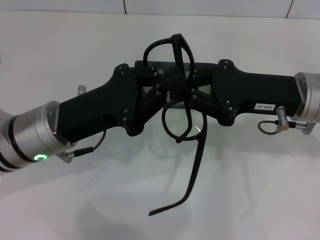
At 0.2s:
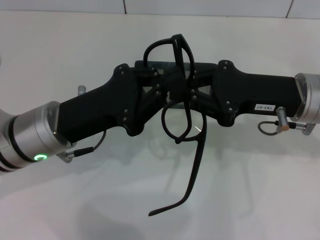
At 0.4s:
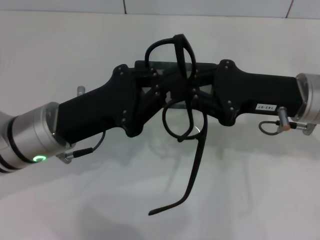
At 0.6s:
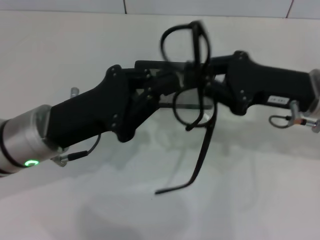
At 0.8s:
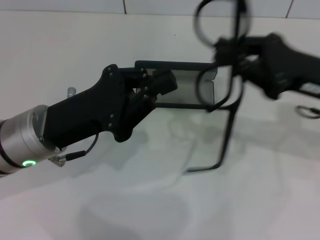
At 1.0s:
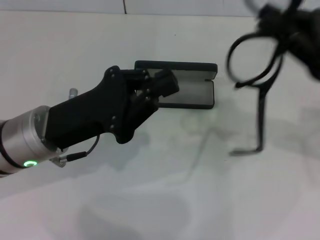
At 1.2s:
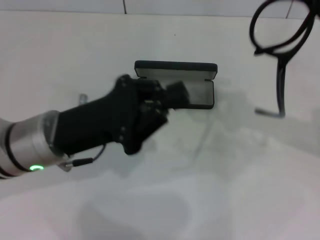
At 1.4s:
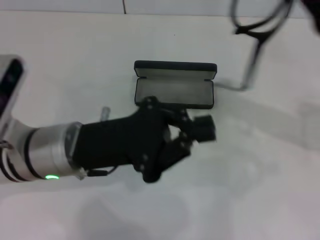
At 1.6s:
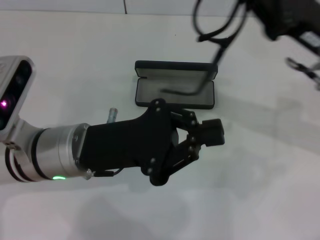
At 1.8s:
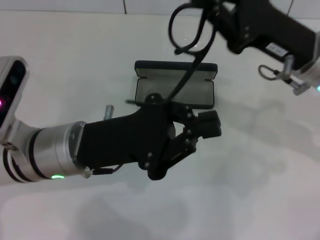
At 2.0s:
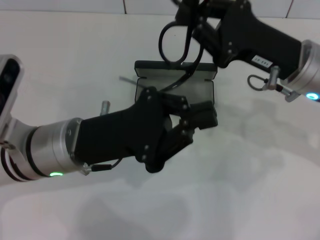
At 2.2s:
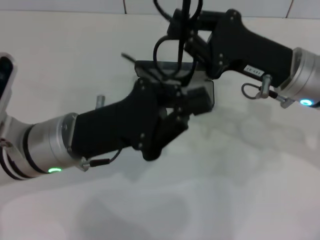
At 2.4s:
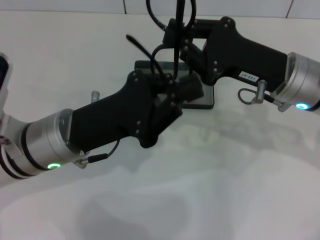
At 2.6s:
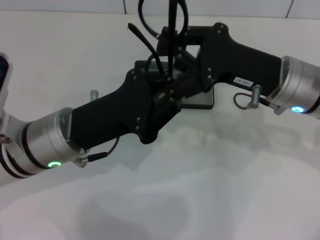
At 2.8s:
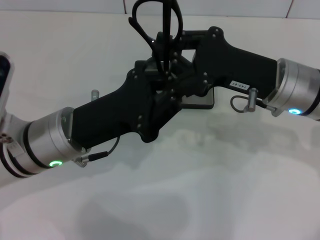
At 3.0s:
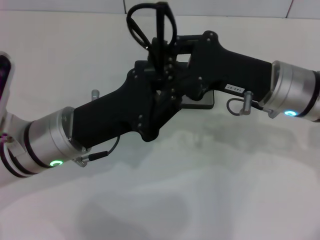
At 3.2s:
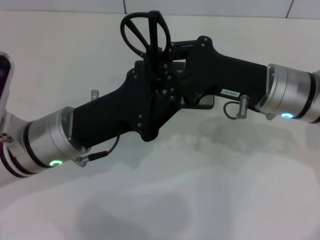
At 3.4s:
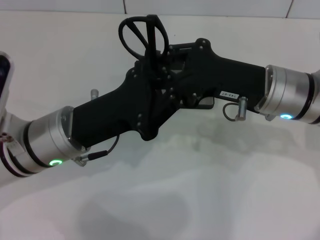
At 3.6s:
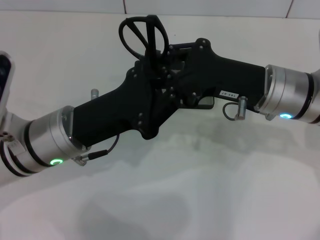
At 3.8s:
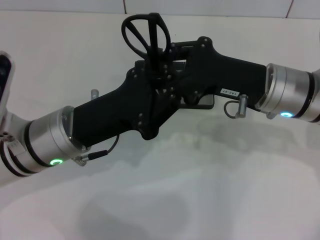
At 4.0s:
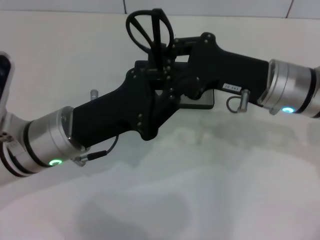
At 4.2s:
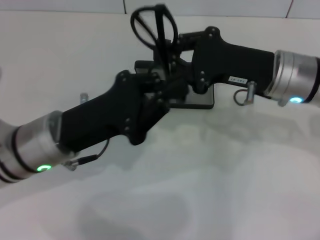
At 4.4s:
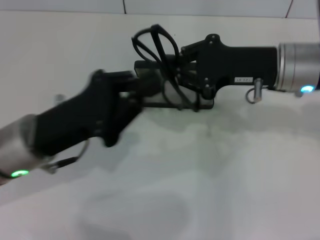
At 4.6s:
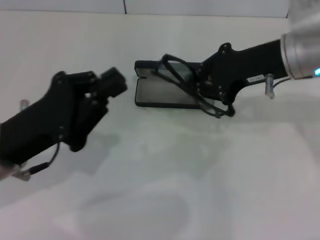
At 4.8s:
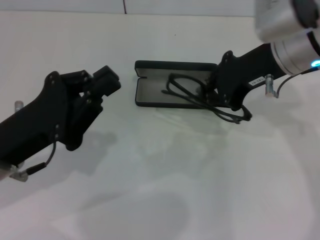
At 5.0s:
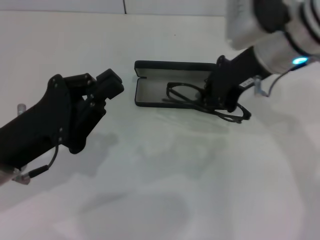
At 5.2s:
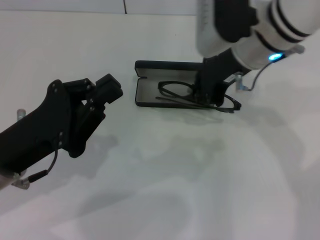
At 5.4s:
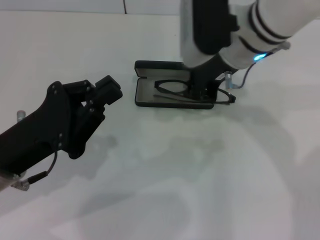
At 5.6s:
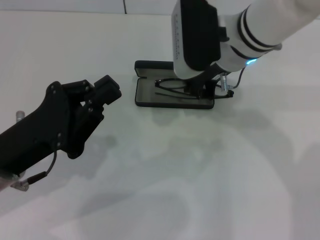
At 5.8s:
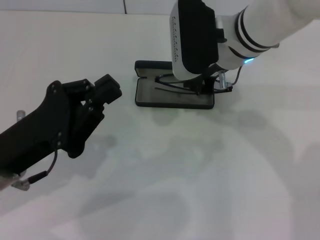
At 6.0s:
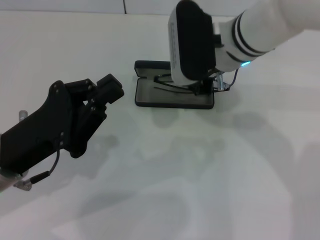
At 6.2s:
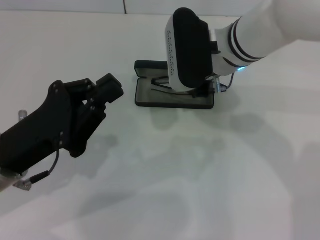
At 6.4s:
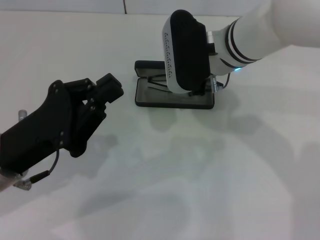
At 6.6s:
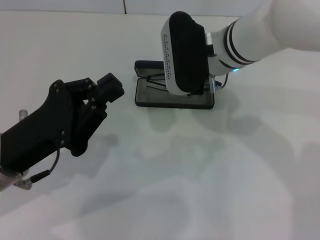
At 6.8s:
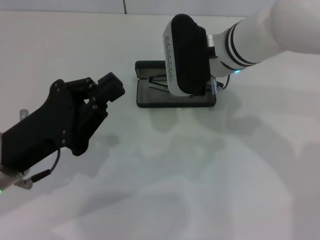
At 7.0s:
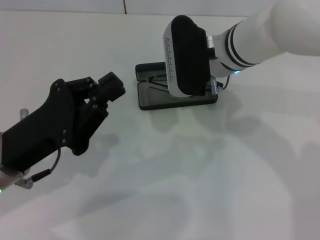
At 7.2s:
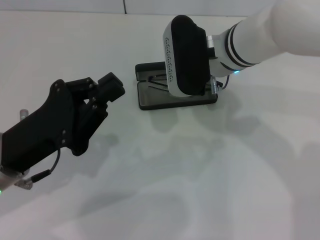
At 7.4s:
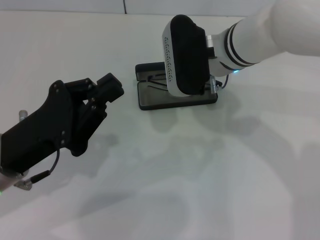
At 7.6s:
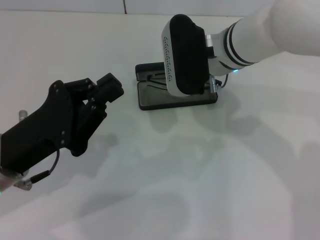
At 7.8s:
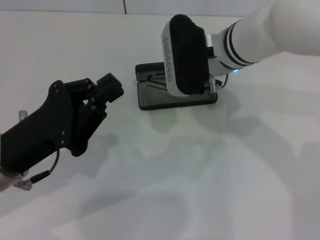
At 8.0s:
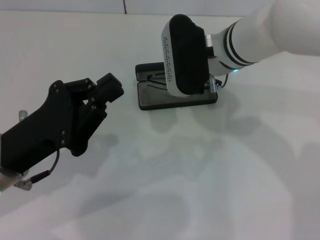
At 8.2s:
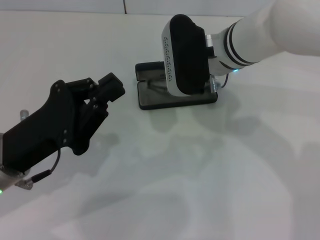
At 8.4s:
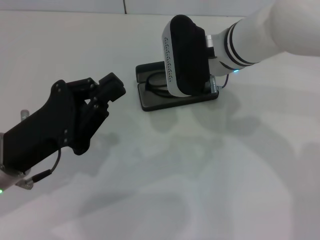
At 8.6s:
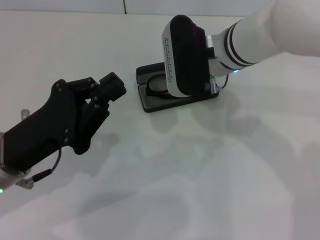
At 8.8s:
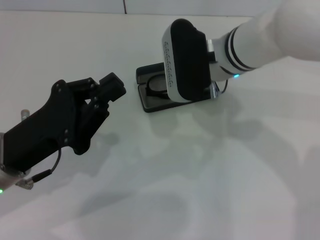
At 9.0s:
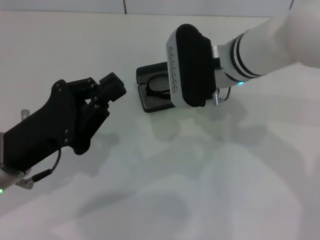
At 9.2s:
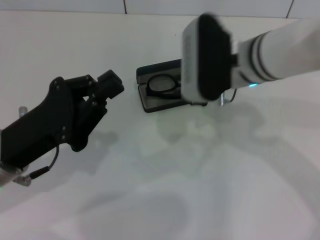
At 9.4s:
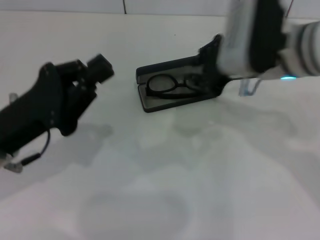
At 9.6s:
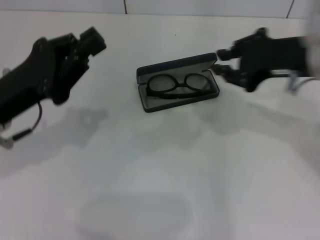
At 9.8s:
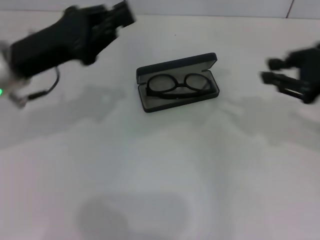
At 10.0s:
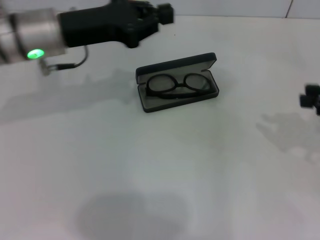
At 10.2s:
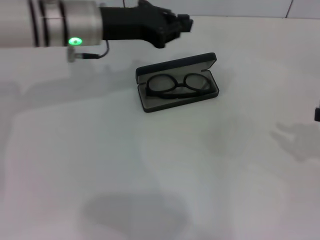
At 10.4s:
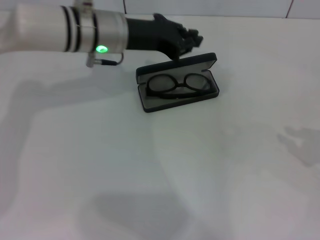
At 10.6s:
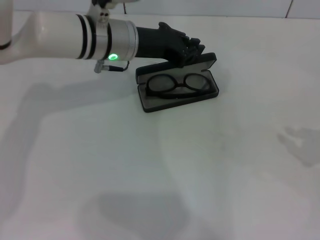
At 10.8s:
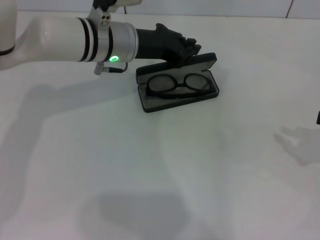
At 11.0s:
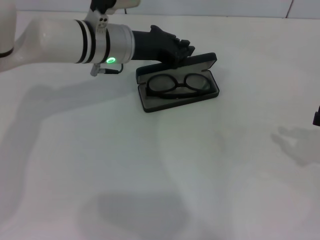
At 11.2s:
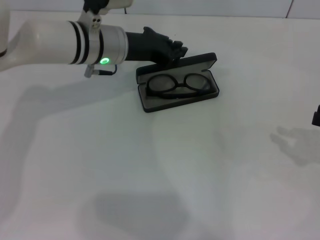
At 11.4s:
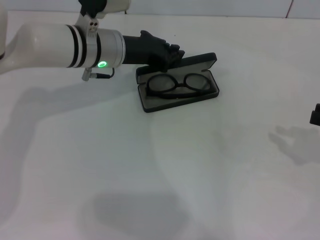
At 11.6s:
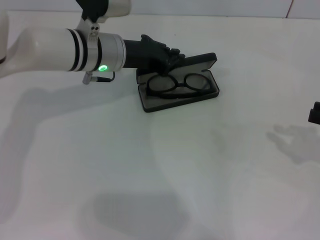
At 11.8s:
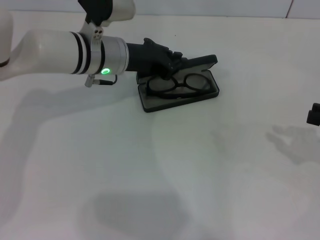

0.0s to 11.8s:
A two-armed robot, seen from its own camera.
Step, 0.0s to 3.6s: Lift the glasses with your right hand.
Step, 3.8s to 8.4s: Put the glasses into the case with your right hand.
0.0s to 1.4s: The right gripper travels to the right by some 5 cm.
1.4s to 3.0s: The right gripper heads to the left, covering about 10 cm.
4.4s to 6.0s: The right gripper goes roughly 10 cm to the left.
6.0s to 7.4s: The grippers stay close to where they were, moving slightly.
7.4s to 8.8s: Both grippers stay about where they are.
8.8s to 10.4s: The right gripper heads to the right and backward, covering roughly 35 cm. The left gripper shifts about 20 cm forward and to the right.
10.4s to 11.8s: There are only small adjustments of the grippers.

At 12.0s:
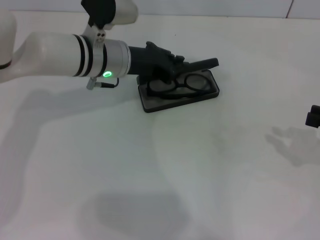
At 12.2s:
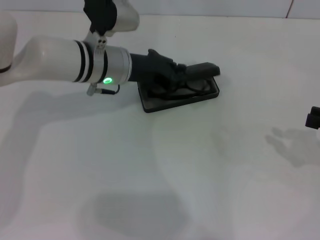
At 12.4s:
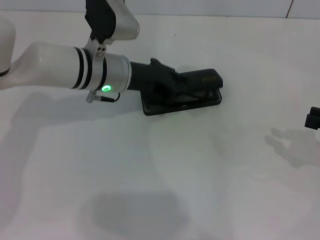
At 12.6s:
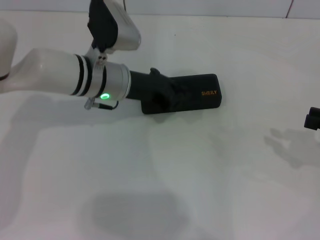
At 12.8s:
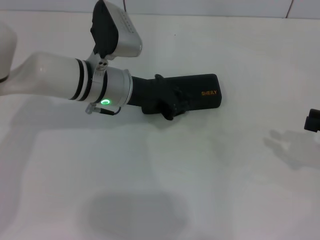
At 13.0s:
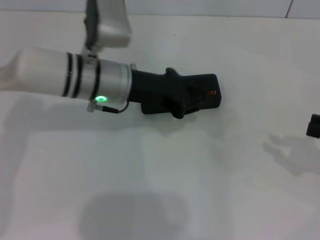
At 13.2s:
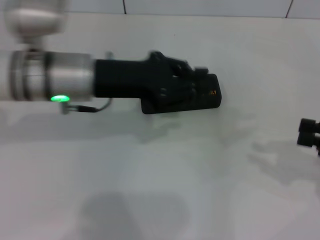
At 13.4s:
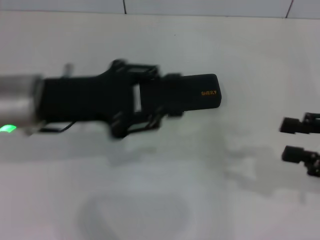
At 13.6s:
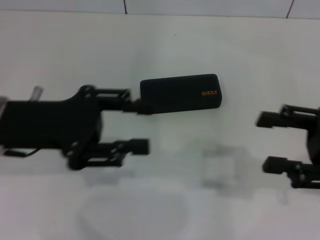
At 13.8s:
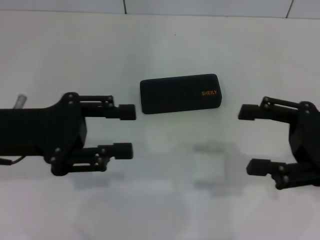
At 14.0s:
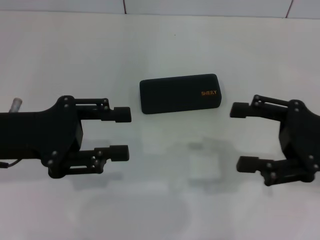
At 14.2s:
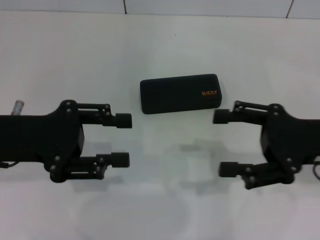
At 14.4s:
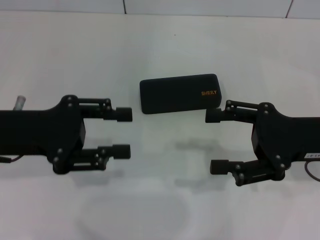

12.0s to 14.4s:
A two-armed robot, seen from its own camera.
12.0s to 13.2s: The left gripper moves backward, roughly 10 cm.
13.2s to 14.4s: The left gripper goes about 10 cm to the left and backward, and opens, while the right gripper is displaced to the left by roughly 10 cm, and opens.

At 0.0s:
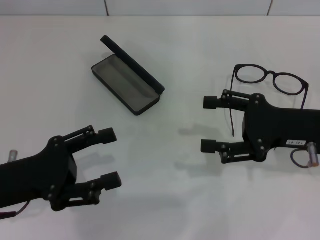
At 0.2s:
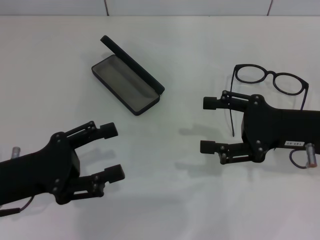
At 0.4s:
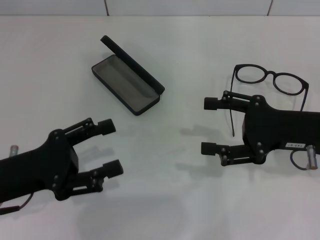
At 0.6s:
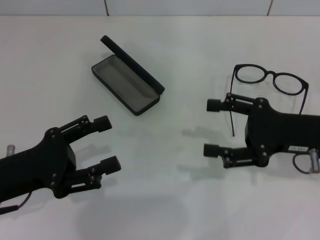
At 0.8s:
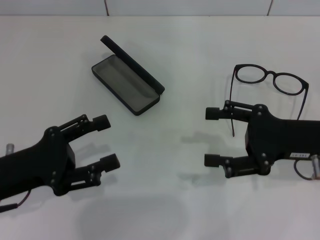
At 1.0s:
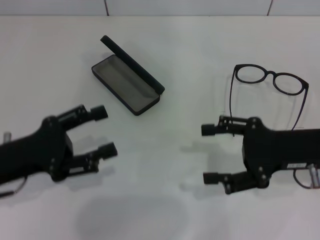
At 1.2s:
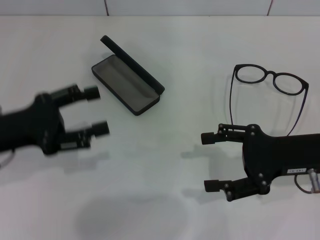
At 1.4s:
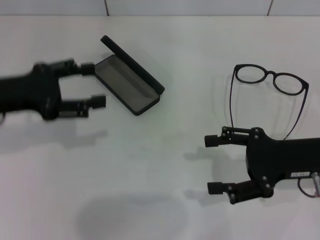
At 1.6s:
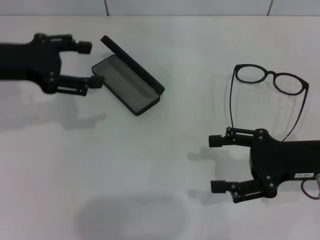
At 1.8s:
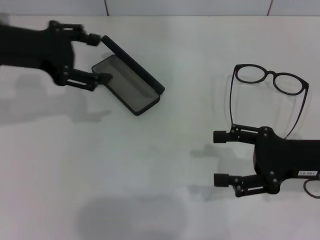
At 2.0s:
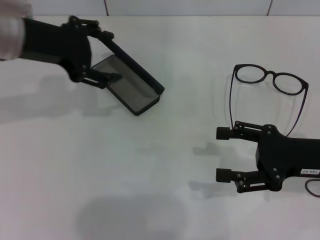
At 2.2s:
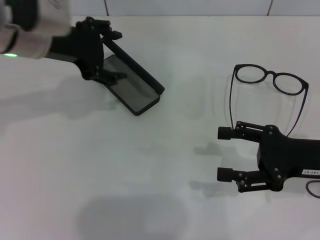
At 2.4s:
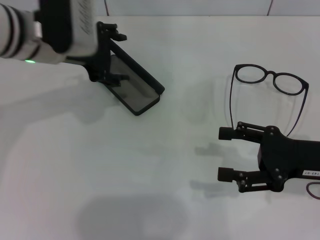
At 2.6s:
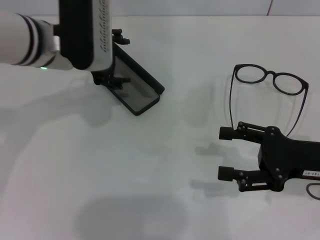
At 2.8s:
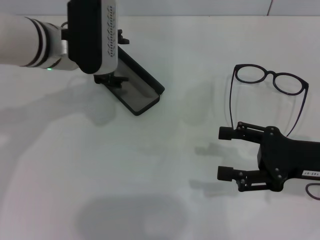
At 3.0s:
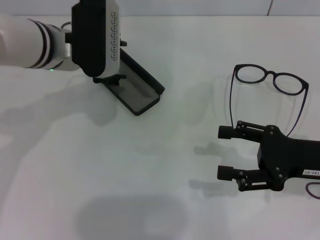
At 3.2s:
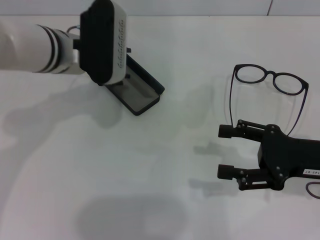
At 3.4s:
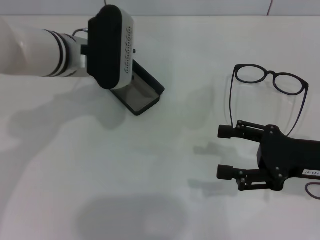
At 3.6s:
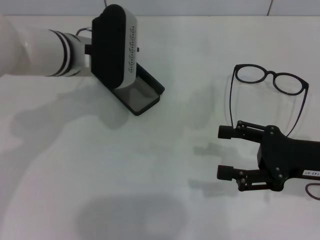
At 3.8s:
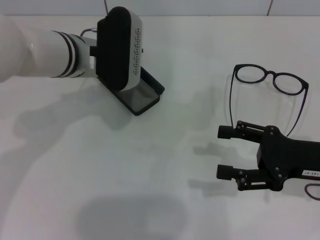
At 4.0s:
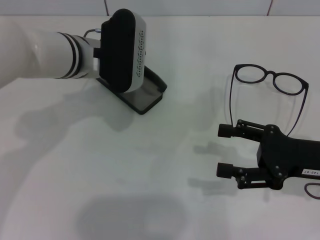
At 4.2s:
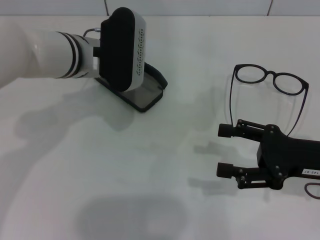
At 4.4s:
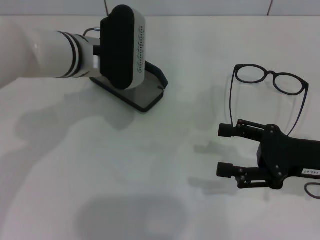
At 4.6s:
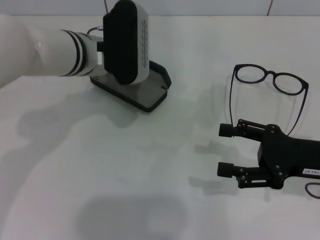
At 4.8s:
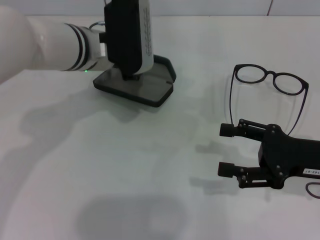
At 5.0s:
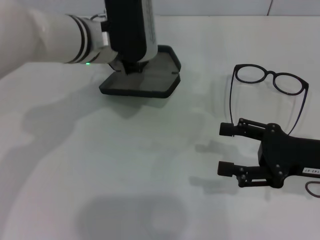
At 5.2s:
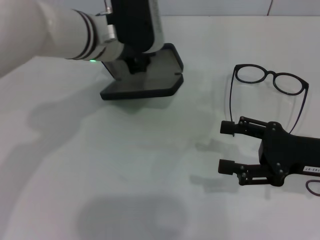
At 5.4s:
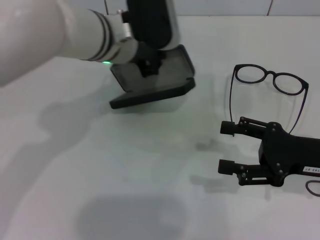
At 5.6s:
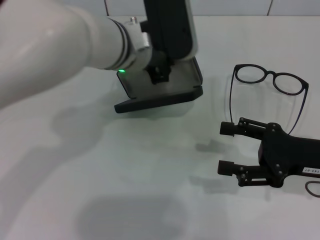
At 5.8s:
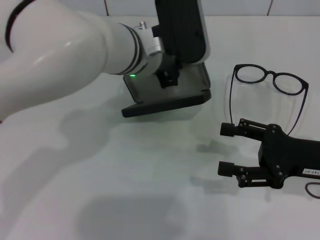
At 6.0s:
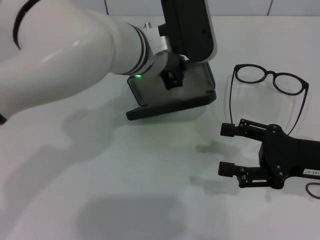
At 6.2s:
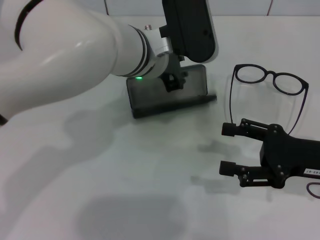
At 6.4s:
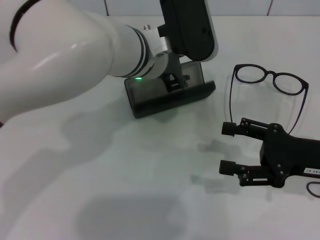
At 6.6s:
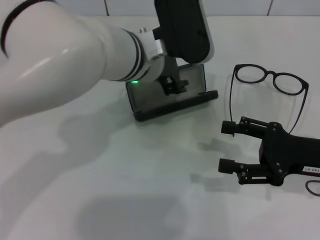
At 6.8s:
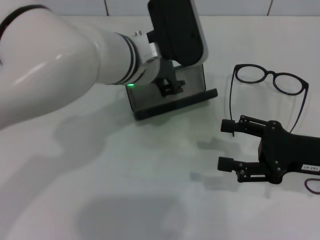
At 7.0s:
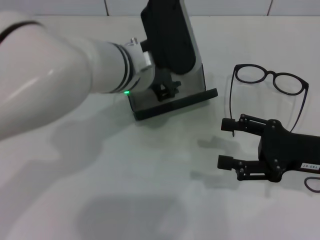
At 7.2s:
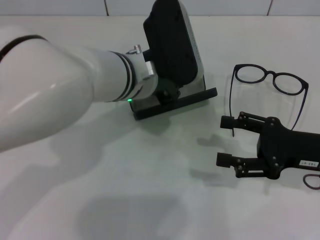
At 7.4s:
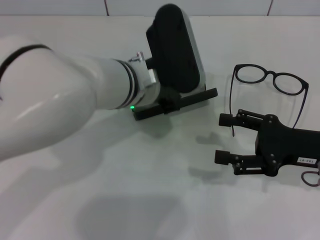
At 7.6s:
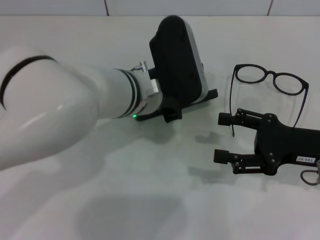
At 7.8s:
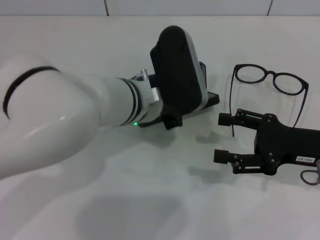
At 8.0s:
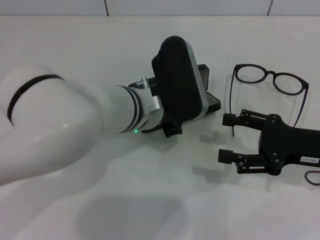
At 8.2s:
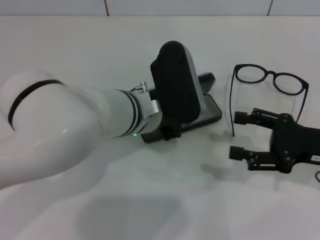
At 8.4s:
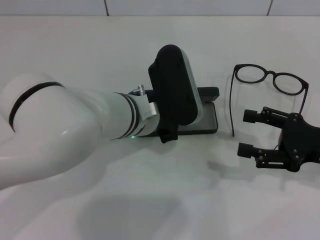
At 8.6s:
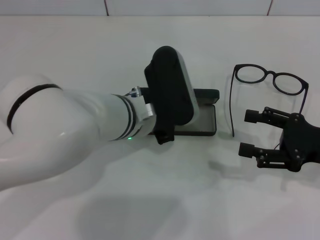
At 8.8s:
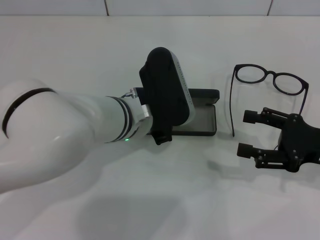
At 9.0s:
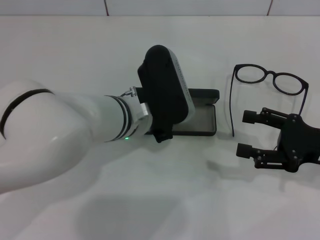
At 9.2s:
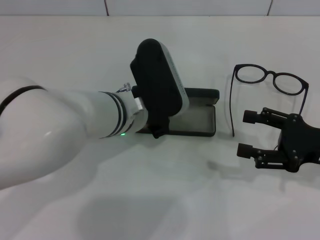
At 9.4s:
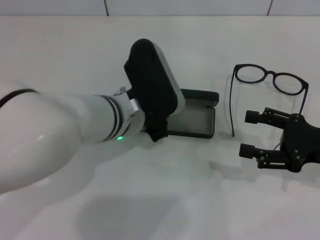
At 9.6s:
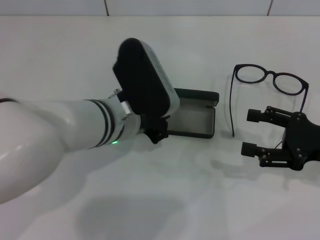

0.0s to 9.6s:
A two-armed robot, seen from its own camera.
Step, 0.0s to 4.0s: Grab the glasses case with your left hand.
Step, 4.4s to 8.6s: Place the glasses case in the center of the table with your left hand.
0.0s to 1.6s: The left gripper heads forward and upward, covering roughly 15 cm.
1.6s to 3.2s: The left gripper moves to the right and forward, some 15 cm.
3.2s to 4.8s: The left gripper closes its fingers.
4.8s to 6.4s: The left gripper heads to the right, covering roughly 5 cm.
6.4s to 8.0s: The left gripper is displaced downward by roughly 5 cm, and closes.
8.0s to 9.6s: The grippers move only a little.
